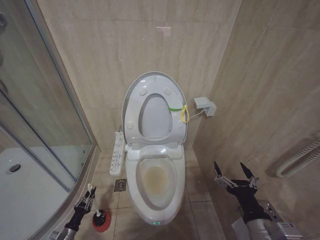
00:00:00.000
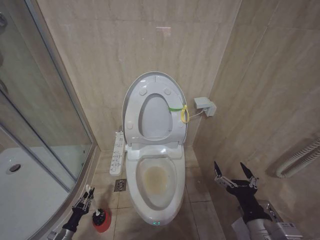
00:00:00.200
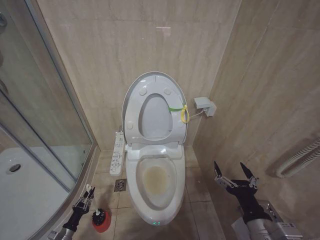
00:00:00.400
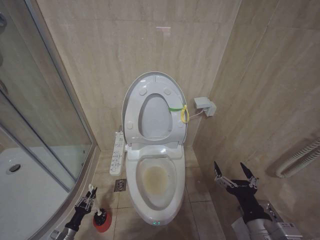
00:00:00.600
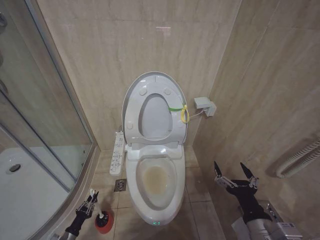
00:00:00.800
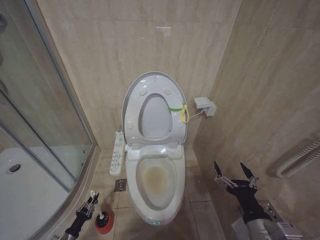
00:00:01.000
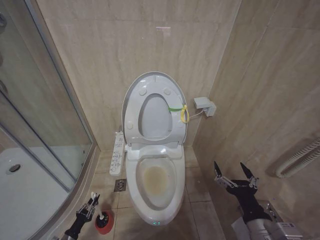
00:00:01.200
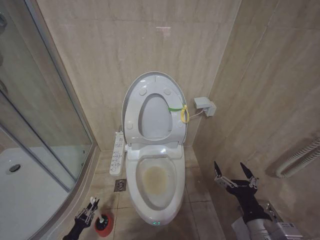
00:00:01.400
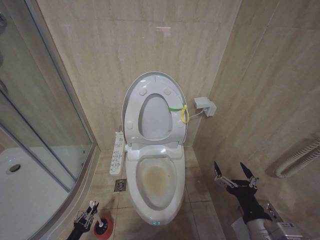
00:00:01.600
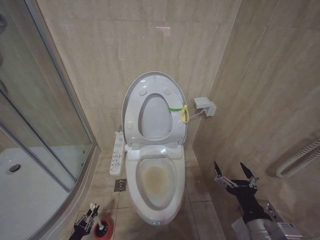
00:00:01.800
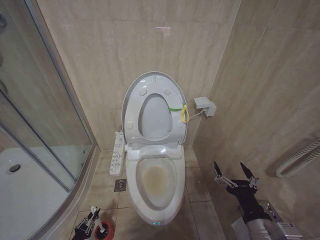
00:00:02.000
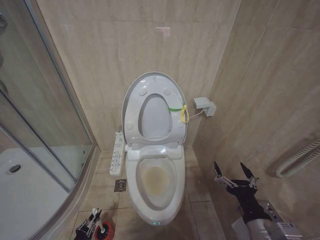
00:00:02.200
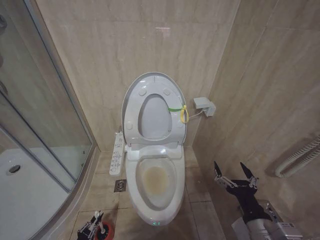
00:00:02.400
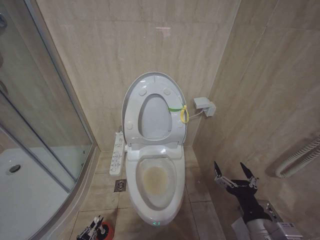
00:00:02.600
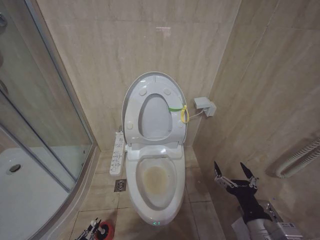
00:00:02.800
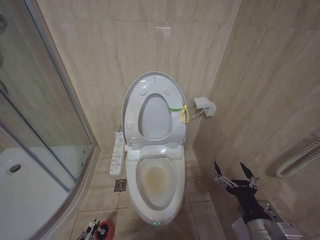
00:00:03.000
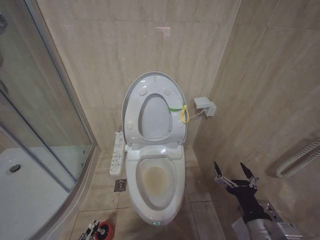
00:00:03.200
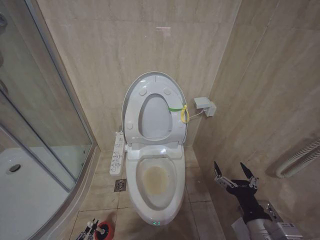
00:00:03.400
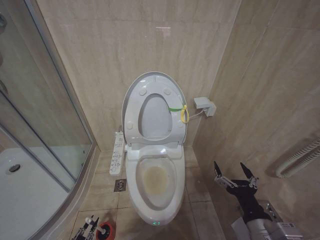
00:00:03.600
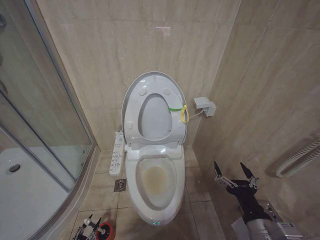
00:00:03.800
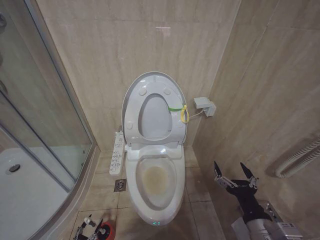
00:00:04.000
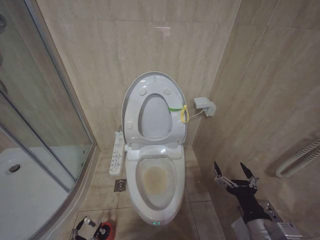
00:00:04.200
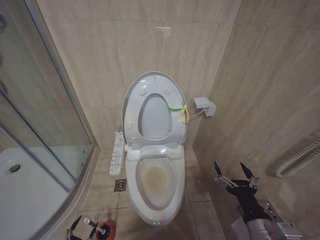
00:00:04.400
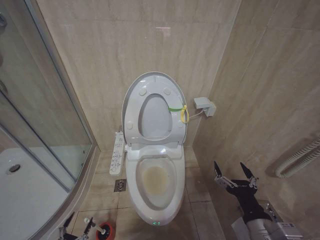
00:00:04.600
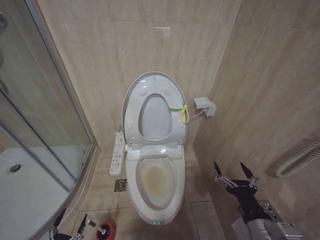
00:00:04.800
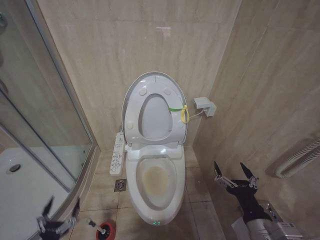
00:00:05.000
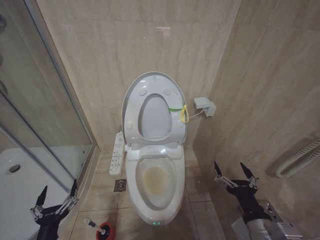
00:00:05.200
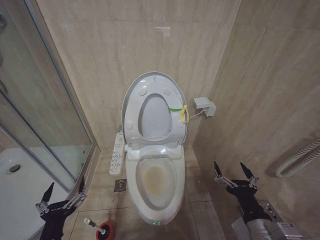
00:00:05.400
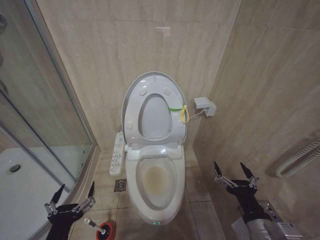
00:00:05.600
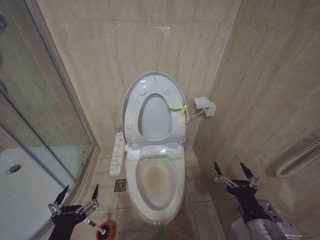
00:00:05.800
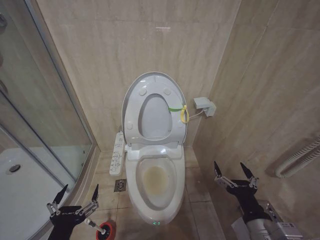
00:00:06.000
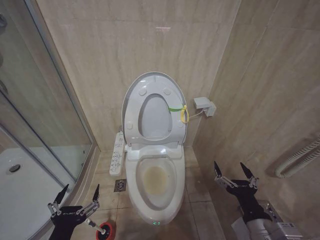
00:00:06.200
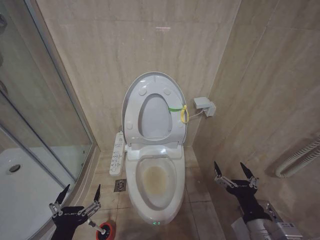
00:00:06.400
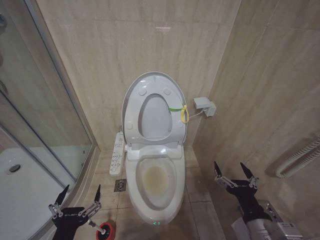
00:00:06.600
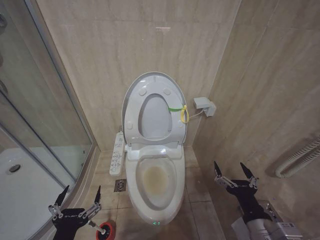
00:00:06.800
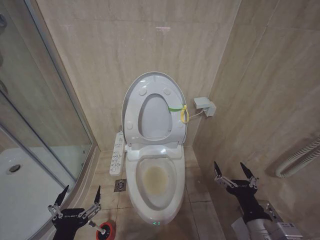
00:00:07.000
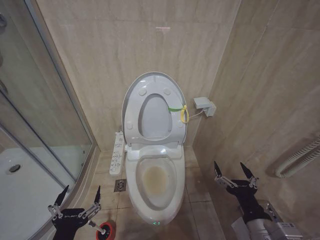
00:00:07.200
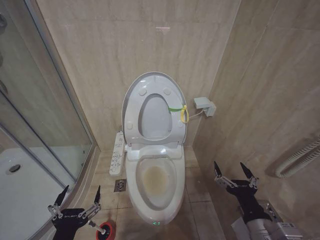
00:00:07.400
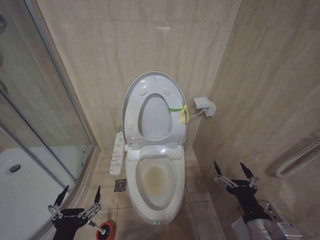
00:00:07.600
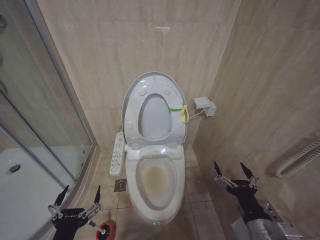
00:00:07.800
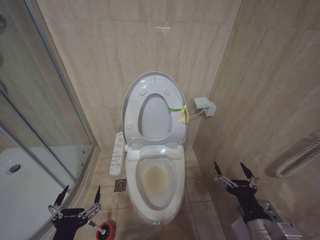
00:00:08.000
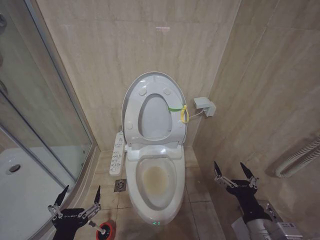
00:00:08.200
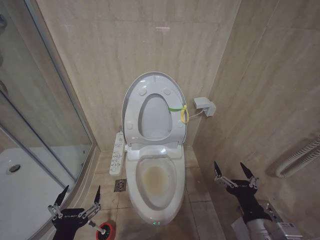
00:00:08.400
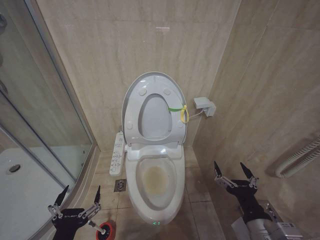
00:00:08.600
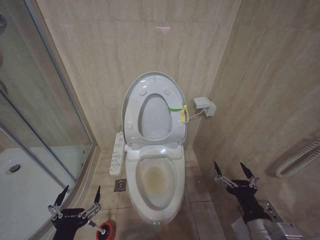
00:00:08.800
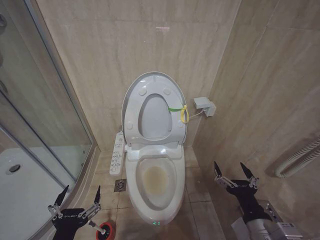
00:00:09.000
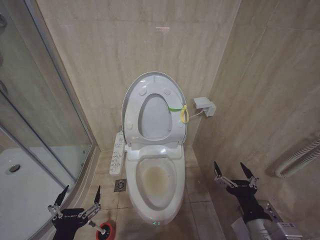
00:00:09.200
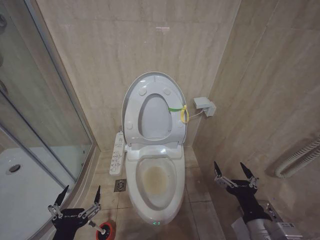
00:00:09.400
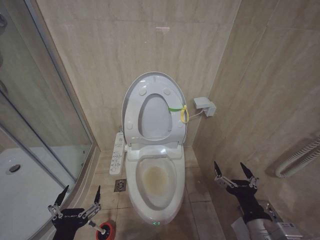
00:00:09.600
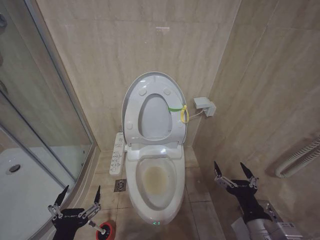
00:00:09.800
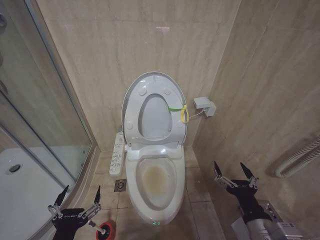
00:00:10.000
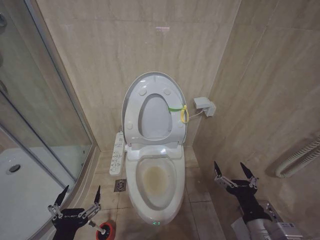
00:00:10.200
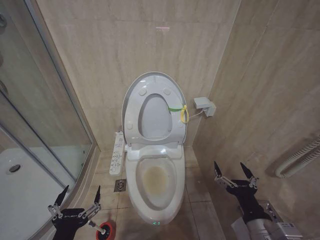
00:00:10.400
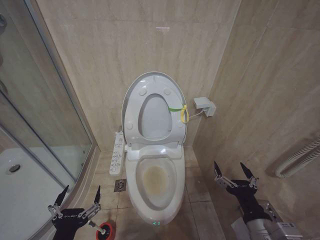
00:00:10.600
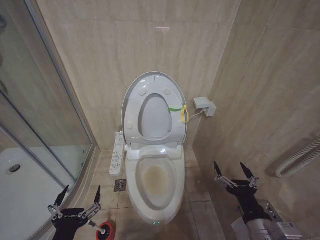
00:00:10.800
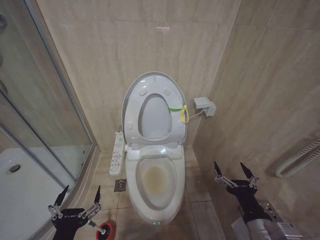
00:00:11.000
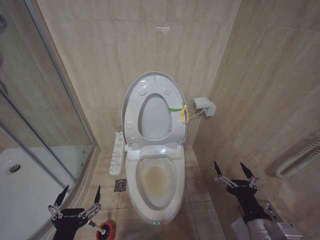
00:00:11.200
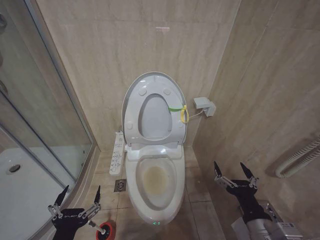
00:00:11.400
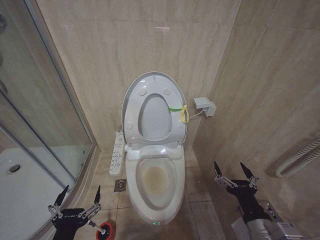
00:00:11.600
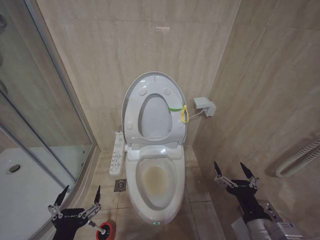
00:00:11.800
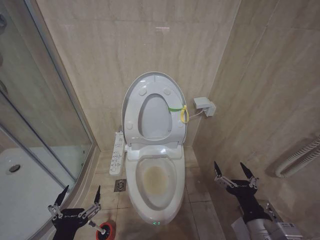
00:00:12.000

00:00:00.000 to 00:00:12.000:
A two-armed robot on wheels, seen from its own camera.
Task of the whole recording: Open the toilet lid, clean the toilet bowl with a toilet brush, close the toilet lid, and flush.
00:00:00.000 to 00:00:01.600: The left gripper shifts roughly 5 cm backward.
00:00:01.600 to 00:00:03.000: The left gripper moves backward, approximately 10 cm.
00:00:04.400 to 00:00:06.000: The left gripper goes approximately 40 cm upward and to the right.
00:00:06.000 to 00:00:07.600: The grippers make only small movements.
00:00:07.600 to 00:00:12.000: The two grippers keep their place.

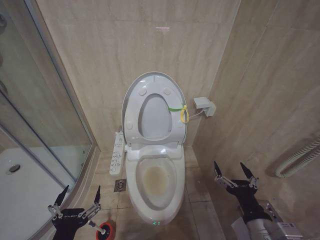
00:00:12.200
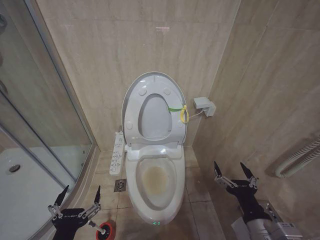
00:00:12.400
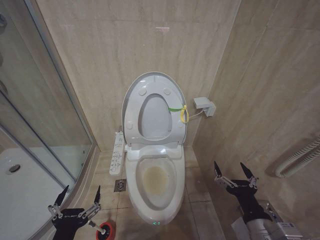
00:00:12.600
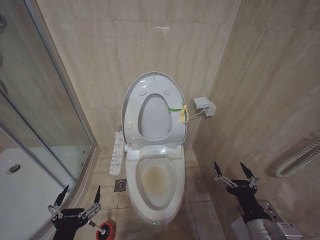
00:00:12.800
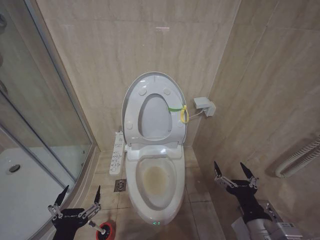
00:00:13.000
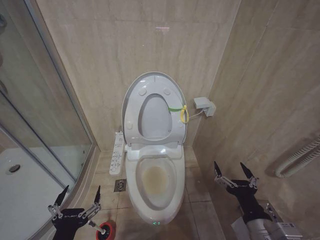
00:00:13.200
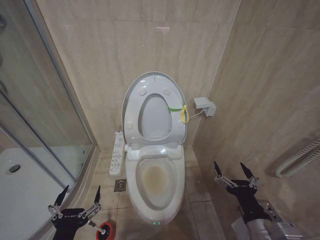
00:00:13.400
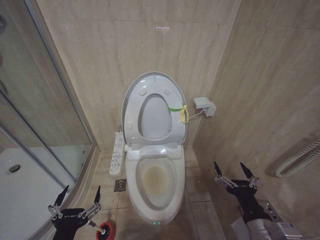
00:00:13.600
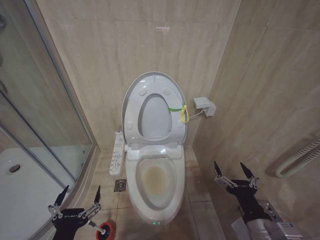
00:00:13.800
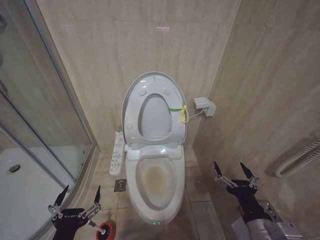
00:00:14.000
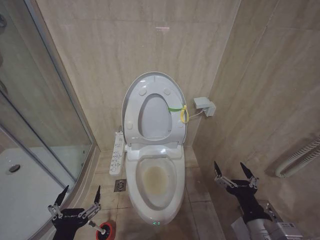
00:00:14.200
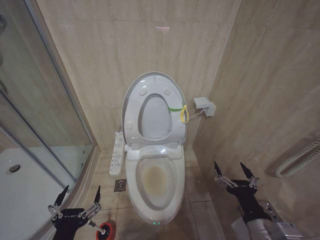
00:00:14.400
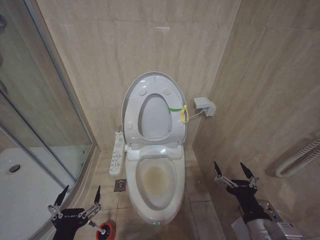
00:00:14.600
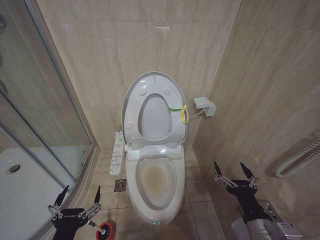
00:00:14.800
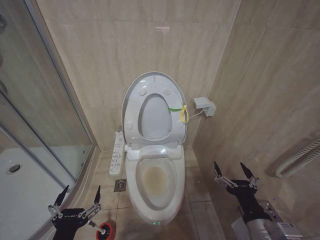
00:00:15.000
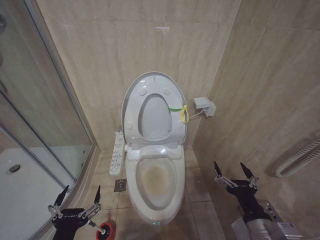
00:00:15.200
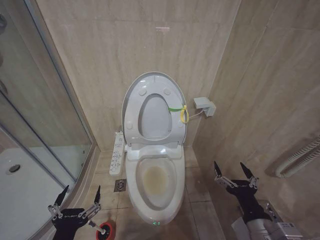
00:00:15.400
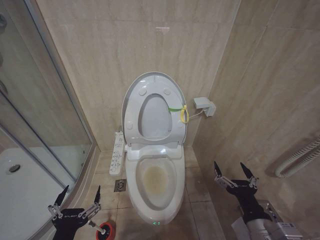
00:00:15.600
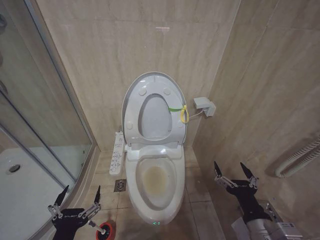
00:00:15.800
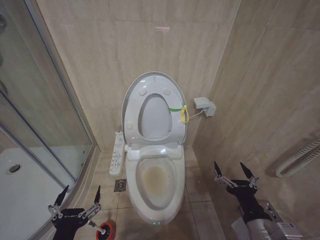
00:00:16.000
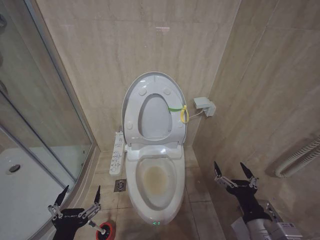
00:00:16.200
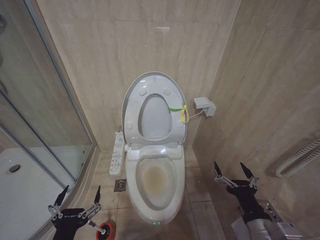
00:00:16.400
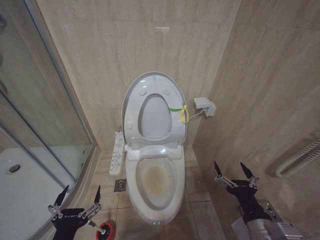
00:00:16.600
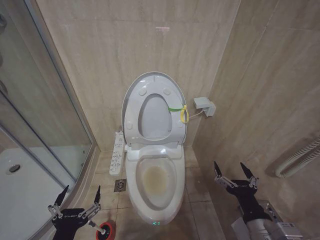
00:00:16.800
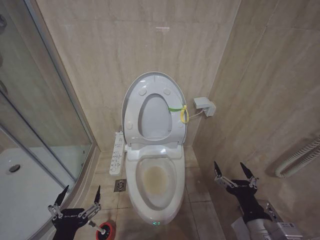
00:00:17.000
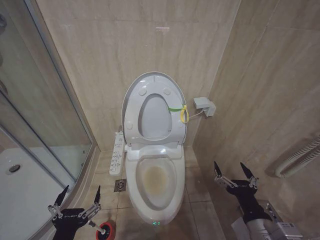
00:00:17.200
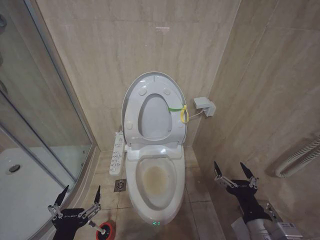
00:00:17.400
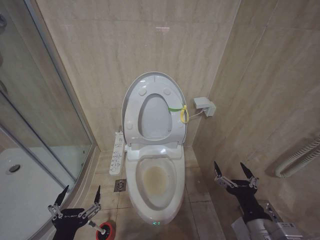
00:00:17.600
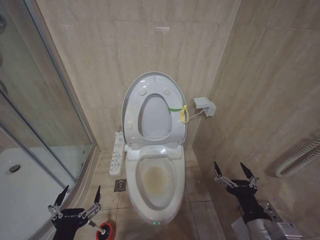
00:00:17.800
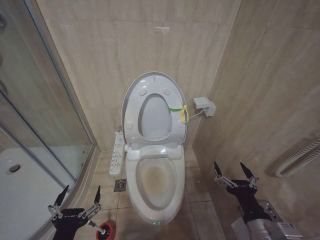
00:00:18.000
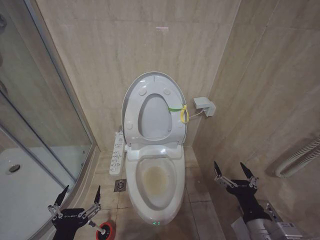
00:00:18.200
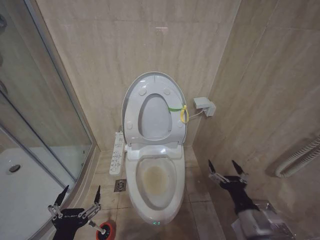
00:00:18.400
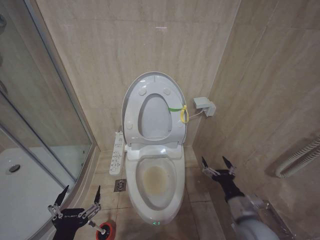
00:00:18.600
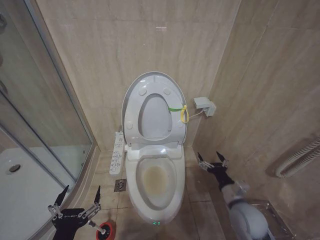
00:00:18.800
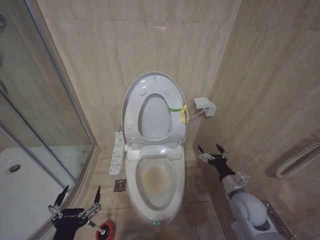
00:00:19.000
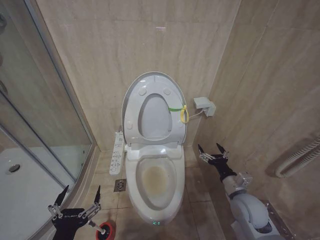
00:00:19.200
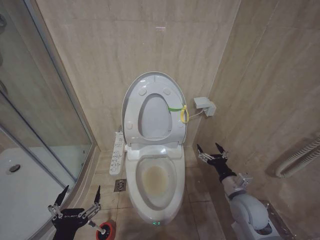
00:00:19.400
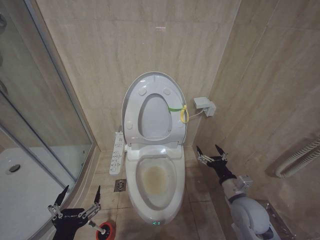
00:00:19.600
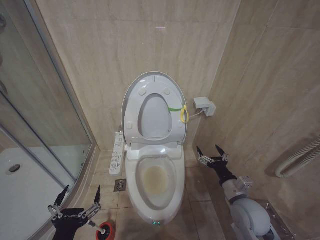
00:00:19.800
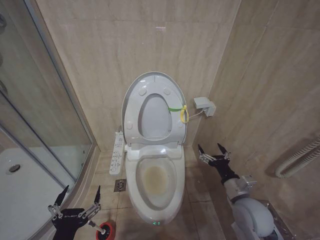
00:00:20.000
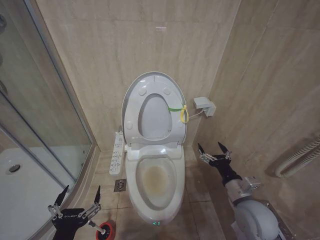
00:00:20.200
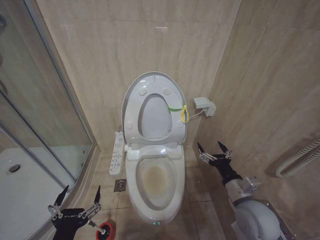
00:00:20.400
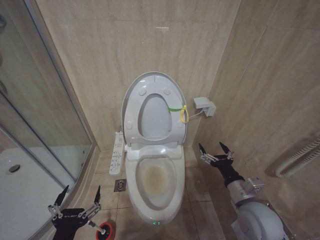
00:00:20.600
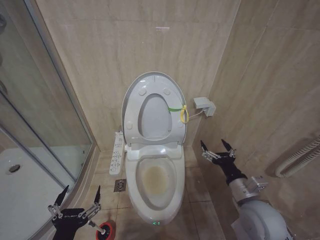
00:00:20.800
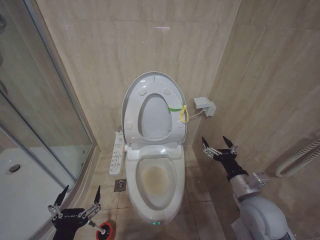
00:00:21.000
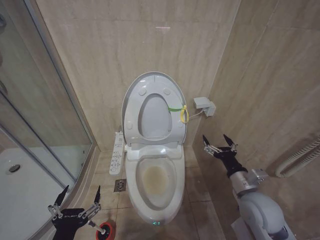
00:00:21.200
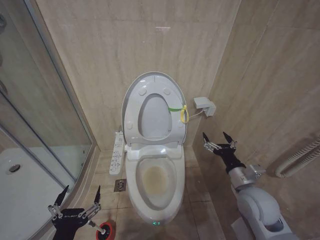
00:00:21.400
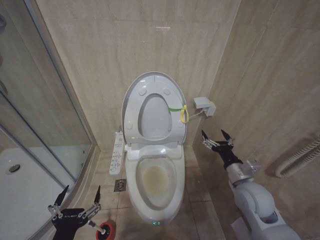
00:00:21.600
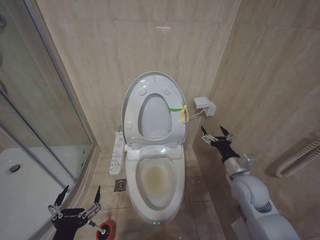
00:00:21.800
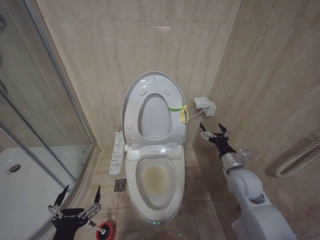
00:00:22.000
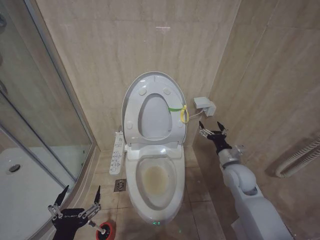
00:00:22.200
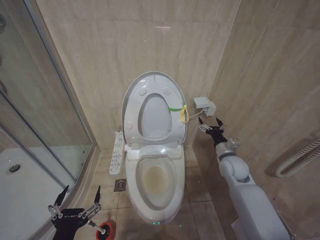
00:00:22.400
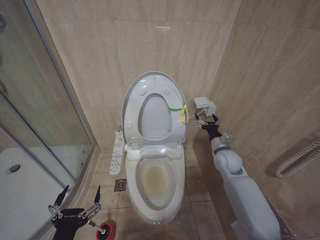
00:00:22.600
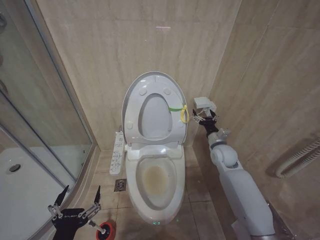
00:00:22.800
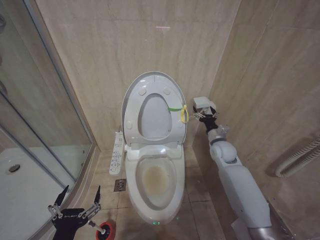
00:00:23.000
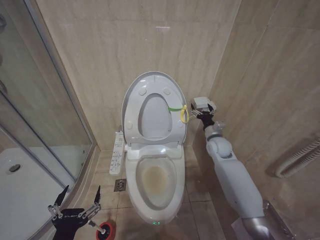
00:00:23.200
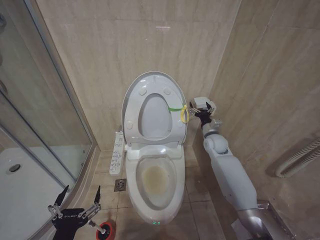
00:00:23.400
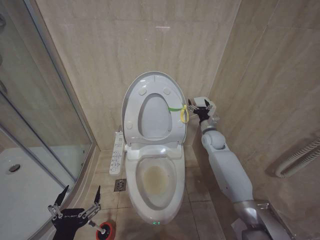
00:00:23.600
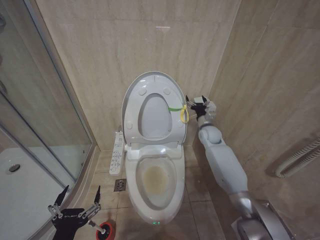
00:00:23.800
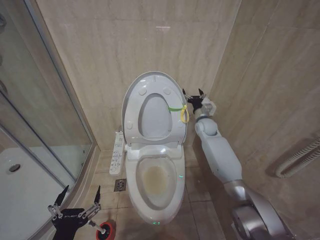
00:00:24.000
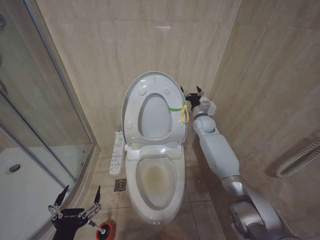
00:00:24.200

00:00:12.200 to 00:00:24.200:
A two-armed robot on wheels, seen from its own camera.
Task of the whole recording: Open the toilet lid, clean the toilet bowl with a toilet brush, close the toilet lid, and flush.
00:00:12.200 to 00:00:18.200: Both grippers stay put.
00:00:18.200 to 00:00:19.800: The right gripper travels forward by roughly 15 cm.
00:00:19.800 to 00:00:21.200: The right gripper goes roughly 5 cm upward.
00:00:21.200 to 00:00:22.600: The right gripper heads forward, covering approximately 20 cm.
00:00:22.600 to 00:00:24.200: The right gripper heads forward and upward, covering roughly 20 cm.
